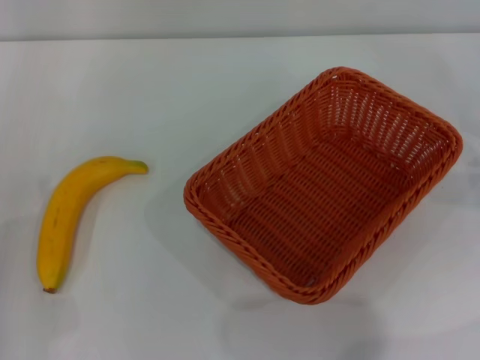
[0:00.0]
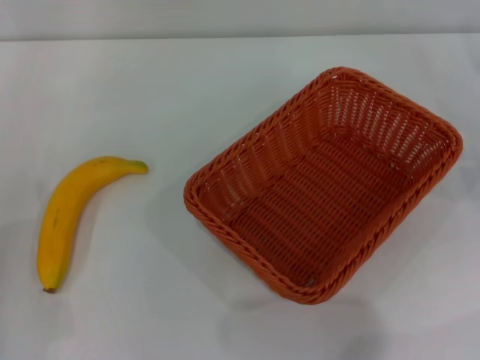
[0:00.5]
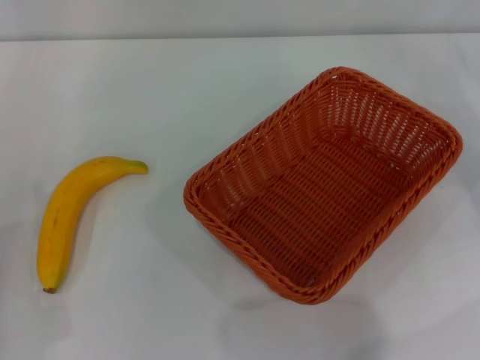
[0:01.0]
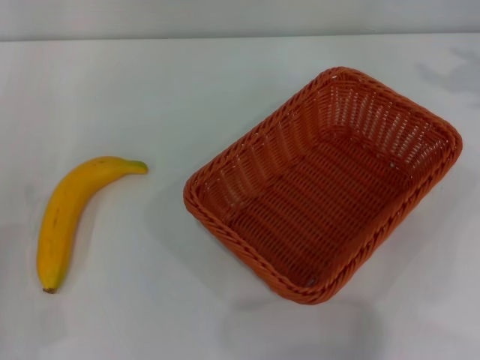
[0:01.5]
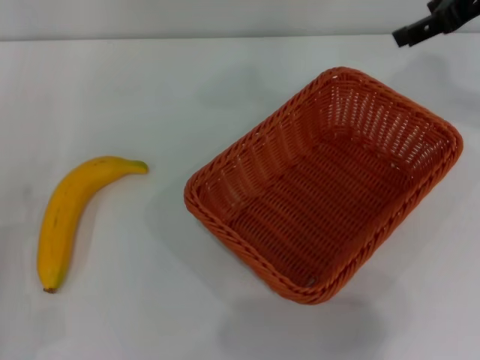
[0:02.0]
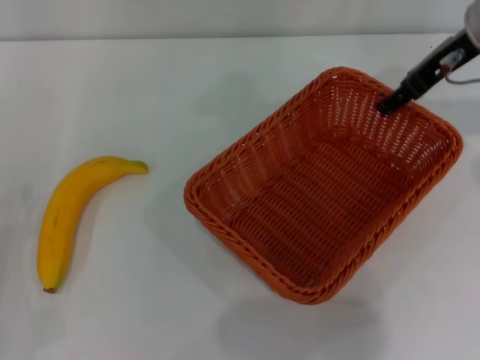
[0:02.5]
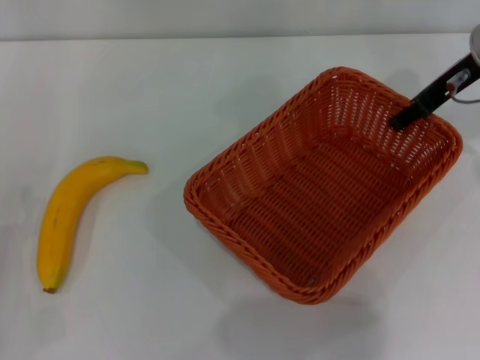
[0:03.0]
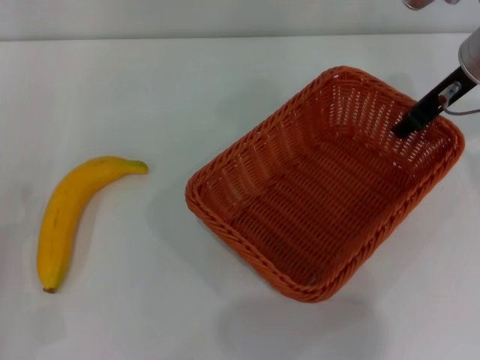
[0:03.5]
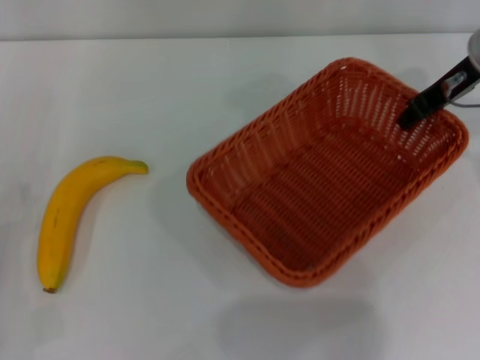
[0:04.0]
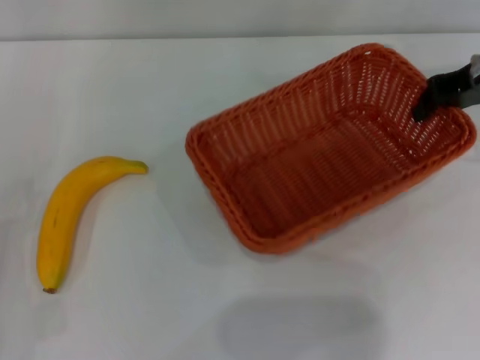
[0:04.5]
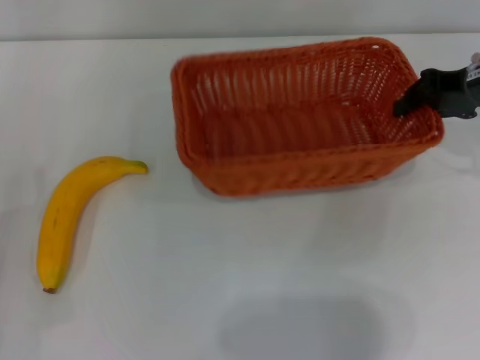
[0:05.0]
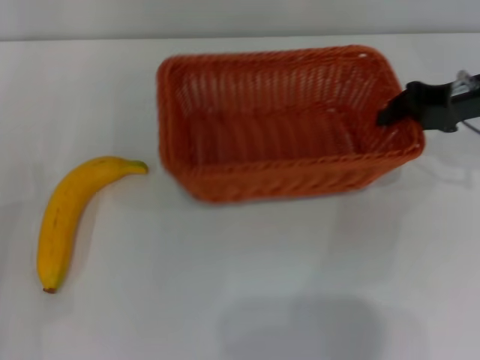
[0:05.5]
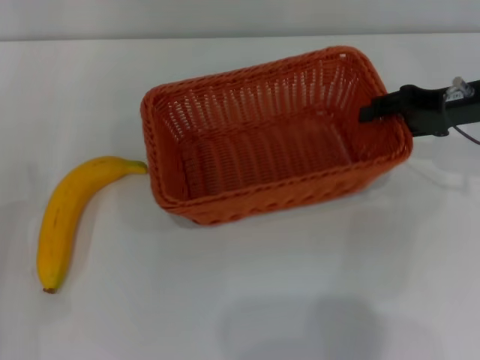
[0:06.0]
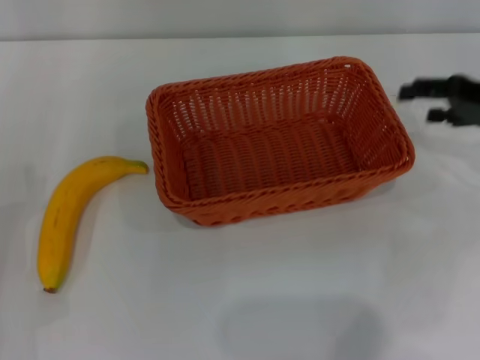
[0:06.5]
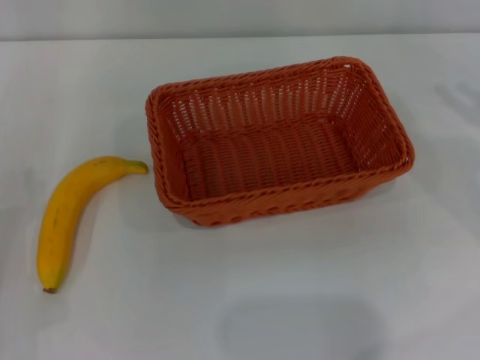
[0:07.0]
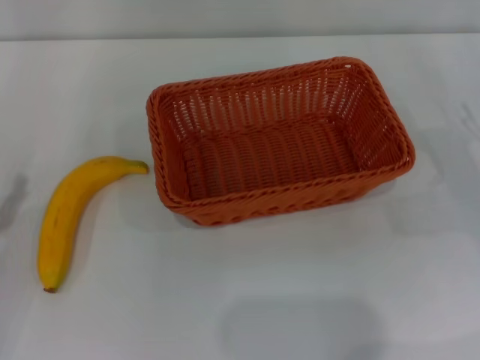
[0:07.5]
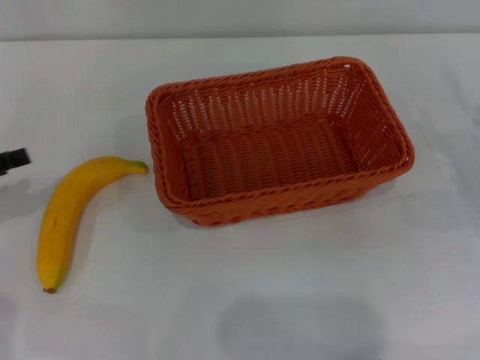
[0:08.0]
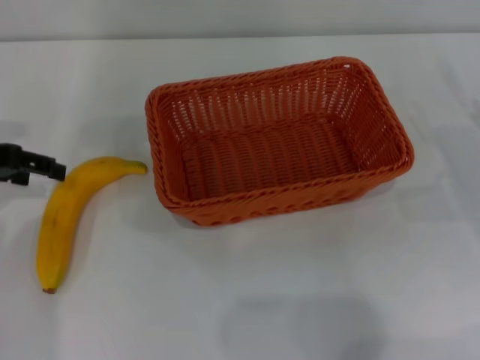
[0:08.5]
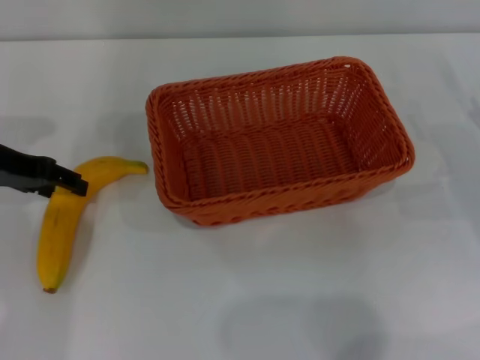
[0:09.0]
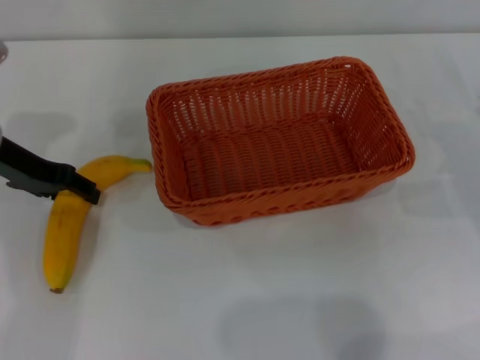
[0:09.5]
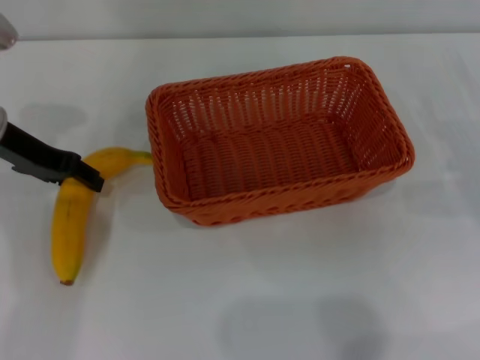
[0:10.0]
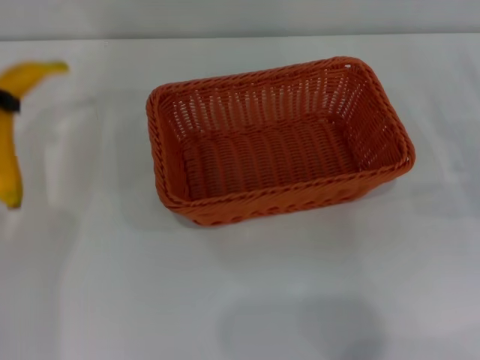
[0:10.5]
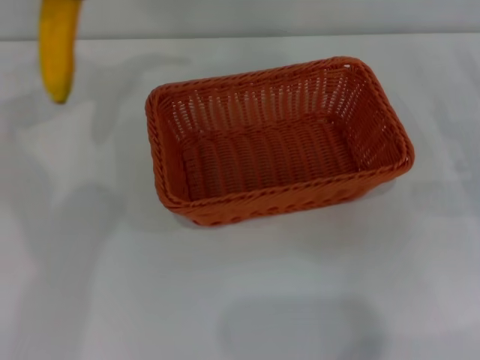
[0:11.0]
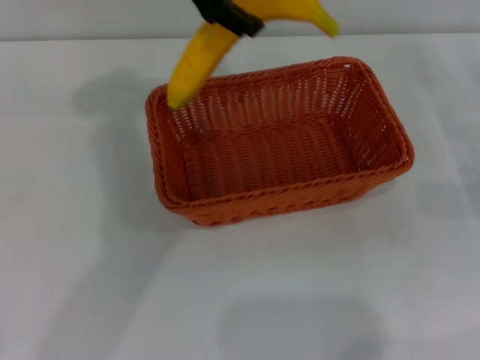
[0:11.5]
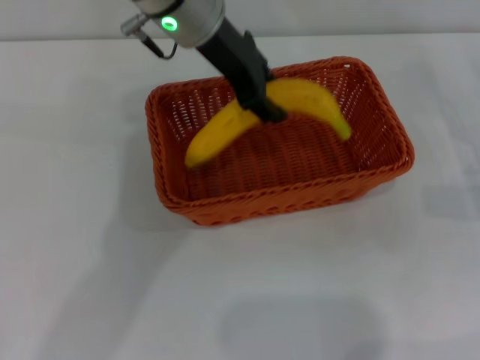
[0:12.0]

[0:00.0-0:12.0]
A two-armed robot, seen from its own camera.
Step, 0:00.0 to 0:04.5: Pick up the light basket with the right gripper.
Step, 0:05.0 to 0:06.5: Place the light basket in the center of view with the right gripper.
Step, 0:07.0 to 0:10.0: Pick up the banana with the left gripper.
0:00.0 to 0:02.0: The right gripper shifts roughly 25 cm upward, to the left and forward.
0:02.0 to 0:04.0: The right gripper shifts some 5 cm downward, and closes up.
0:04.0 to 0:06.0: The right gripper changes place by some 5 cm, and opens its fingers.
0:06.0 to 0:08.0: The right gripper travels downward, to the right and backward by roughly 15 cm, and opens up, while the left gripper heads upward, to the left and forward, covering some 10 cm.
0:08.0 to 0:10.0: The left gripper moves forward and to the right, some 15 cm, and closes up.
0:10.0 to 0:12.0: The left gripper travels to the right by roughly 20 cm.

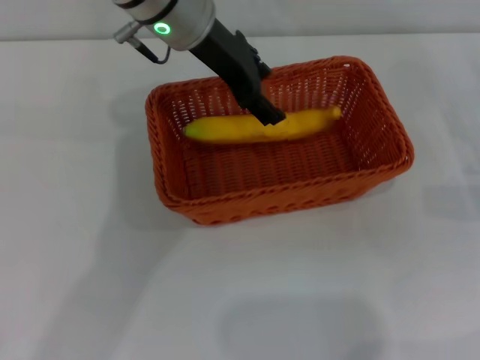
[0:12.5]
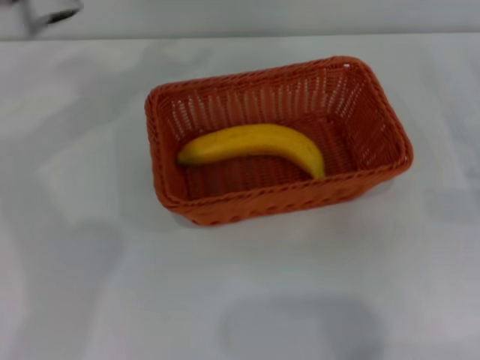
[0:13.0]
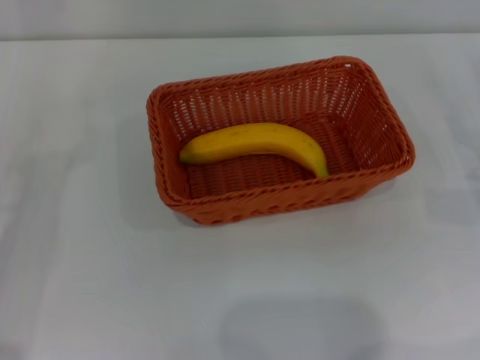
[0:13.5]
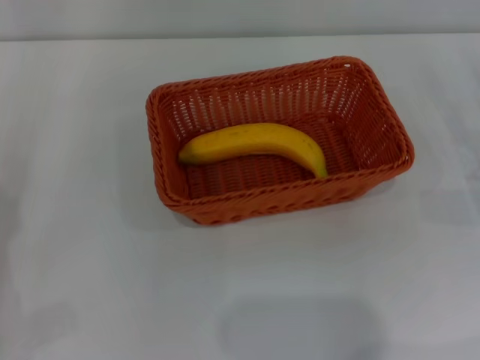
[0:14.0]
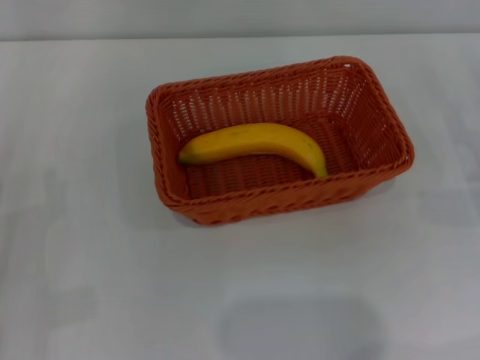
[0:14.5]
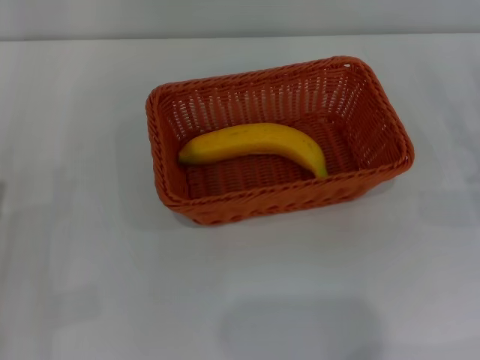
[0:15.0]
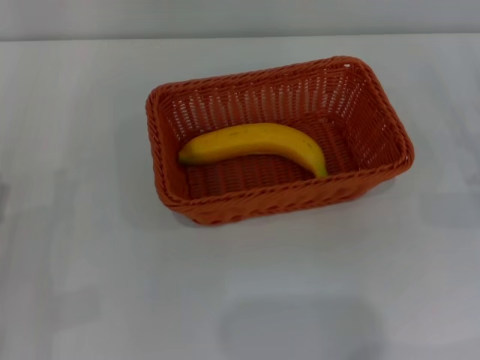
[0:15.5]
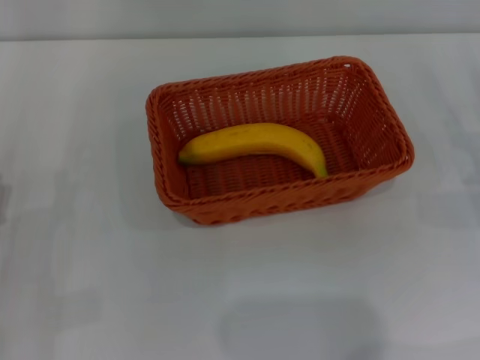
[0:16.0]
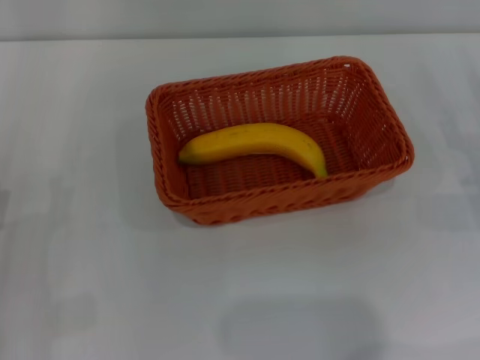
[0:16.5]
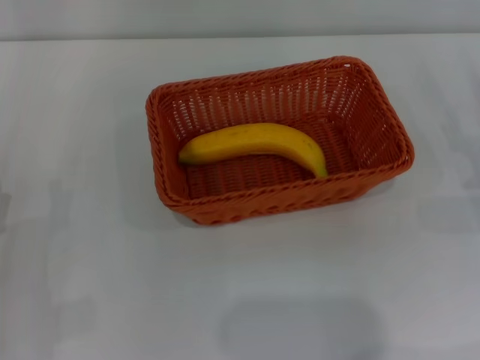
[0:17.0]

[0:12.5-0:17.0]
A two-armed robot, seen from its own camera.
0:12.5 to 0:14.5: The left gripper is displaced backward, to the left and downward by approximately 40 cm, and opens and closes again.

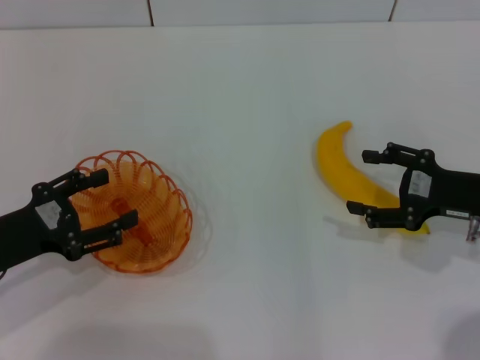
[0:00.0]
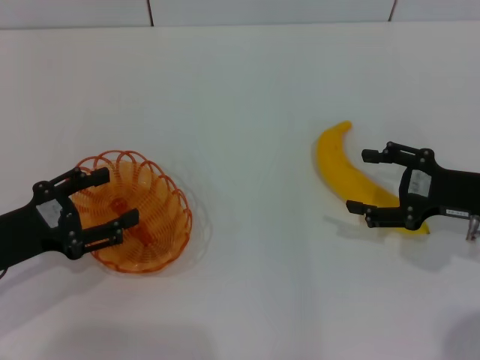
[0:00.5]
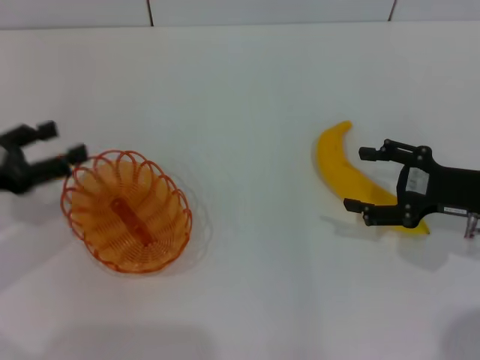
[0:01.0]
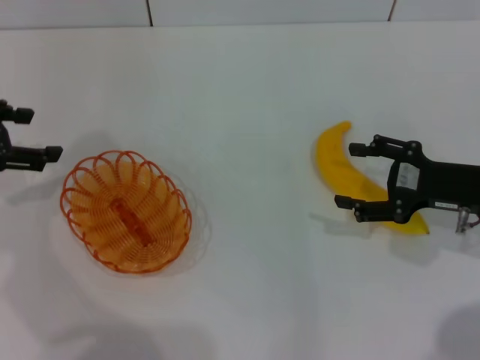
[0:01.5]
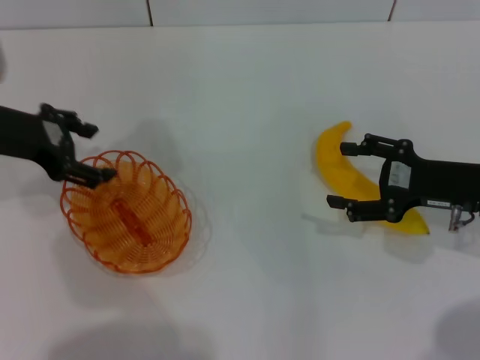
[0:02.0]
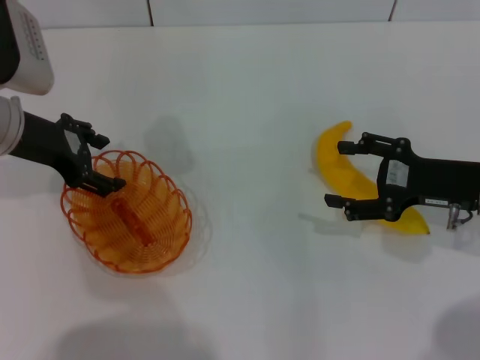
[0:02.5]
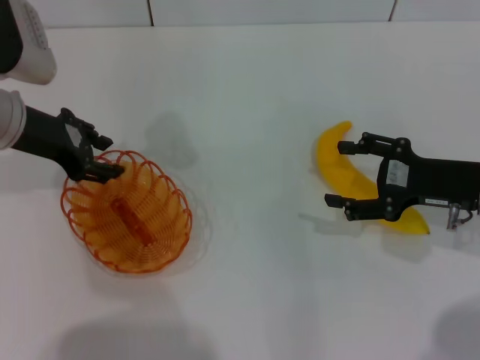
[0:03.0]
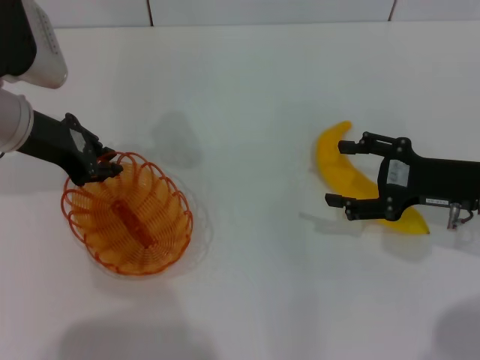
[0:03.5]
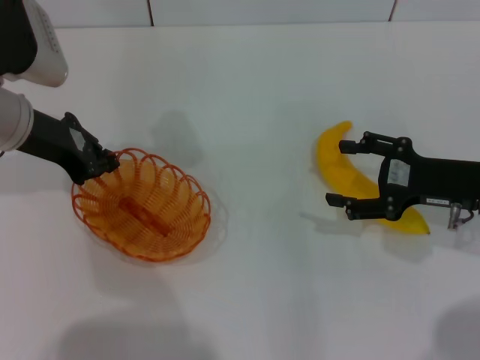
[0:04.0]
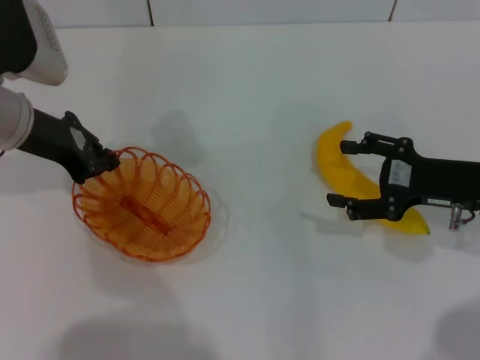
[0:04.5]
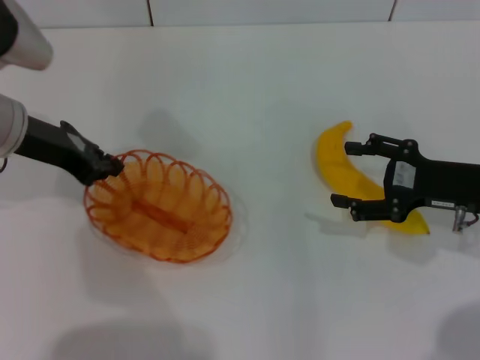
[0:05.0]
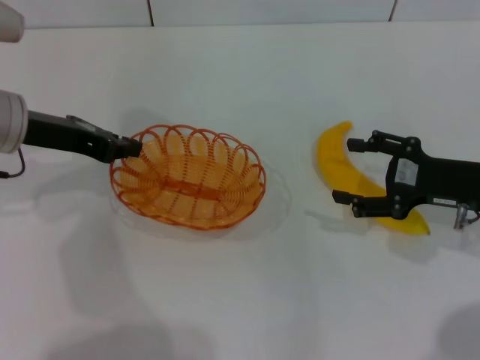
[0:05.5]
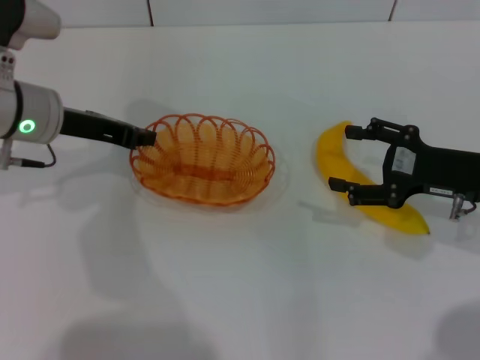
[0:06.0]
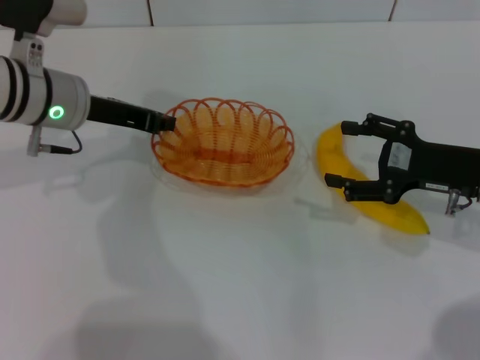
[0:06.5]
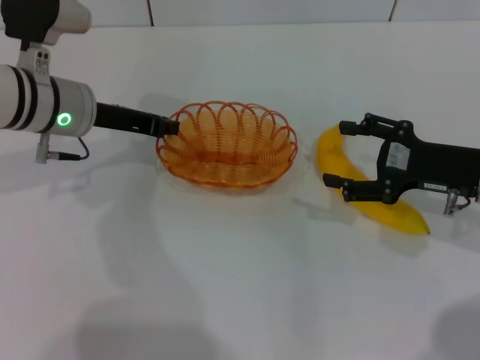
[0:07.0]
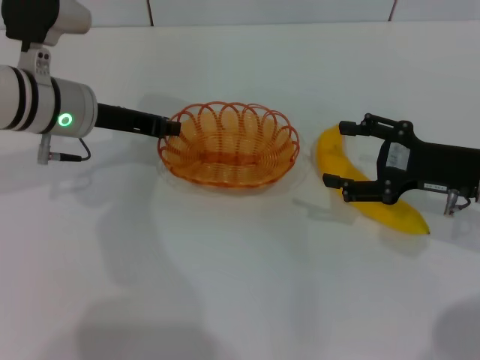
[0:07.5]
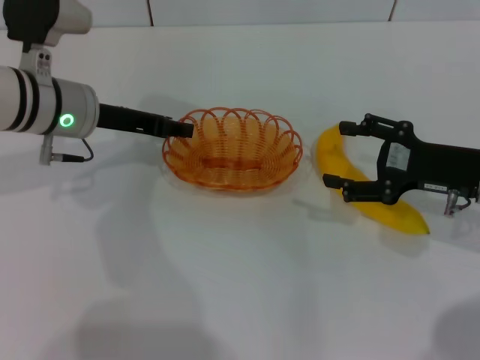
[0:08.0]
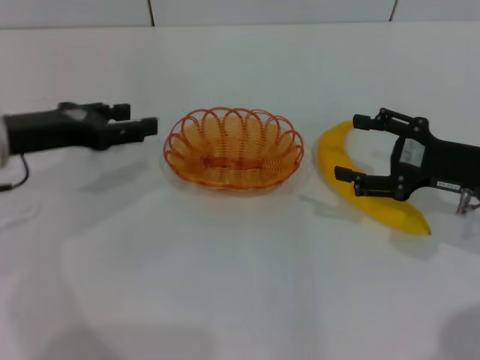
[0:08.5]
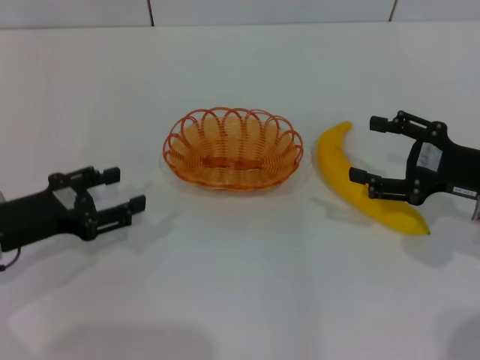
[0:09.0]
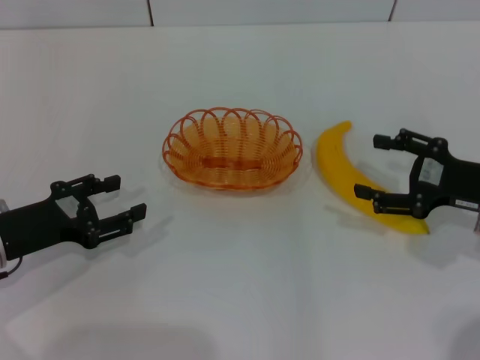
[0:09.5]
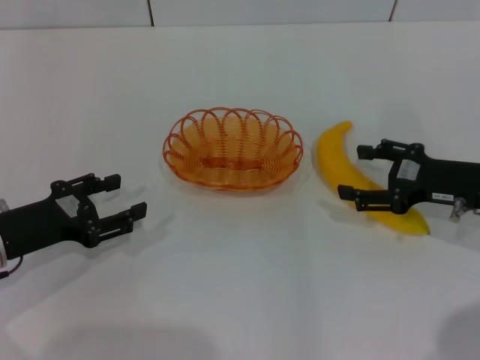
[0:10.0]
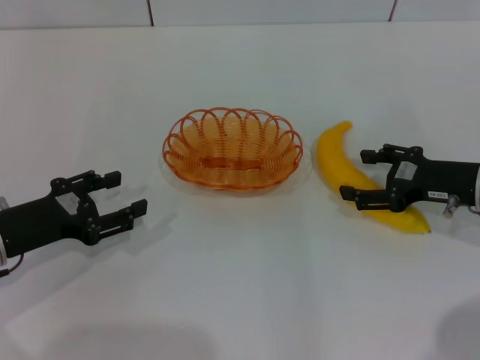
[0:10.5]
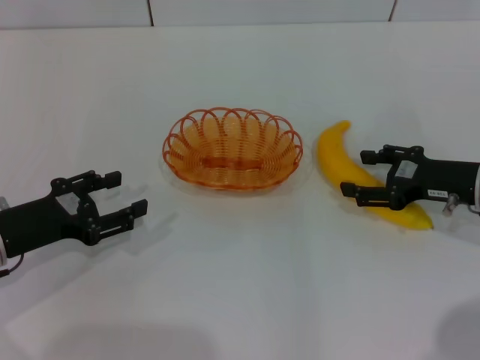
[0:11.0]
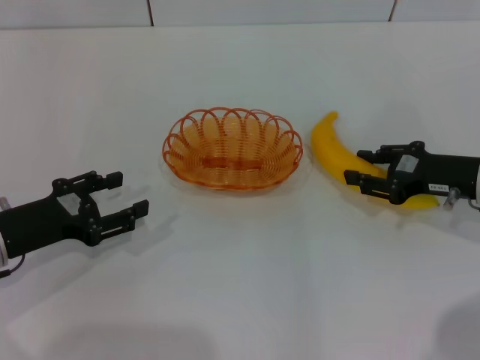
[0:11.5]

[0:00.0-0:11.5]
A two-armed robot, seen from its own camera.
Step, 0:00.0 to 0:05.0: Pick up the basket with the left gripper.
Step, 0:05.5 to 0:08.5: Place the basket in the center of view with the left gripper.
0:00.0 to 0:02.0: The left gripper is displaced forward and upward by roughly 15 cm.
0:02.0 to 0:04.0: The left gripper closes.
0:06.0 to 0:07.5: The grippers make only small movements.
0:07.5 to 0:09.5: The left gripper goes roughly 20 cm backward, to the left and downward, and opens its fingers.
0:09.5 to 0:11.5: The right gripper closes its fingers.
